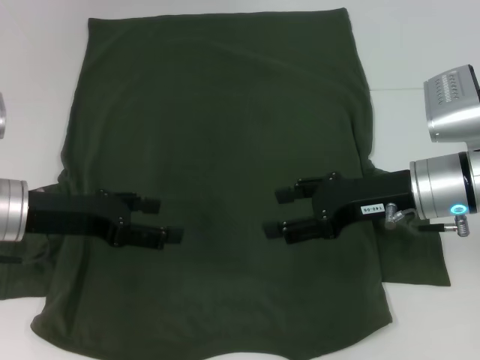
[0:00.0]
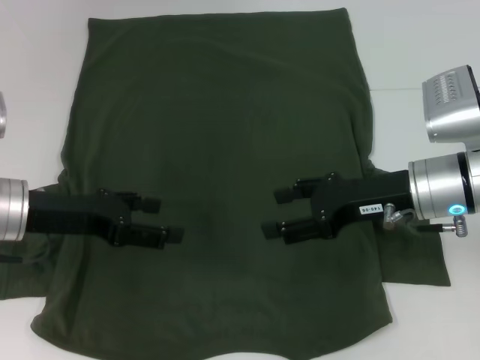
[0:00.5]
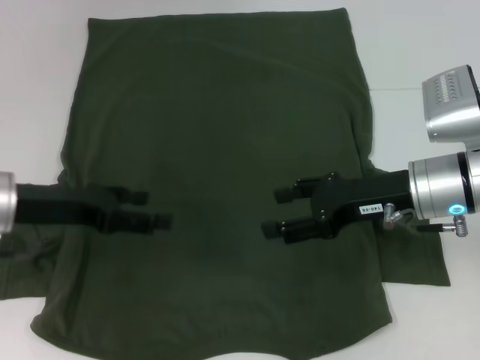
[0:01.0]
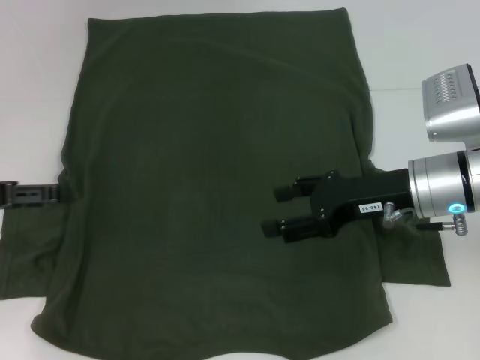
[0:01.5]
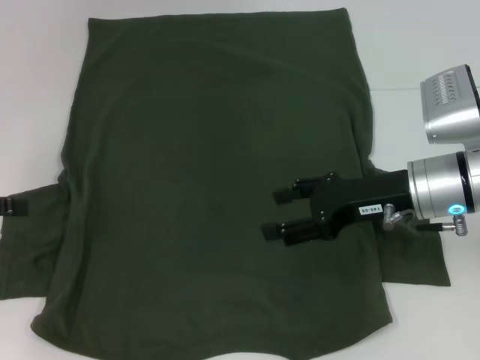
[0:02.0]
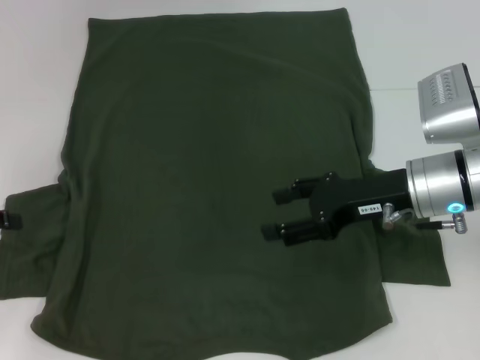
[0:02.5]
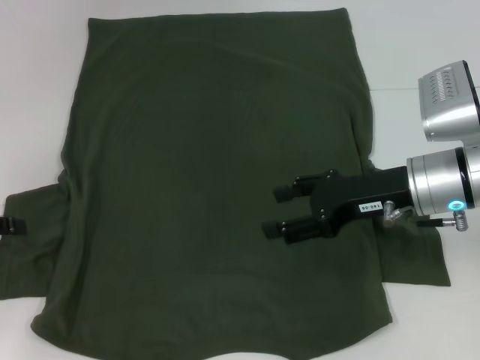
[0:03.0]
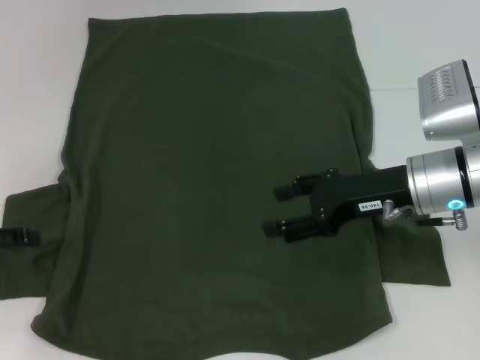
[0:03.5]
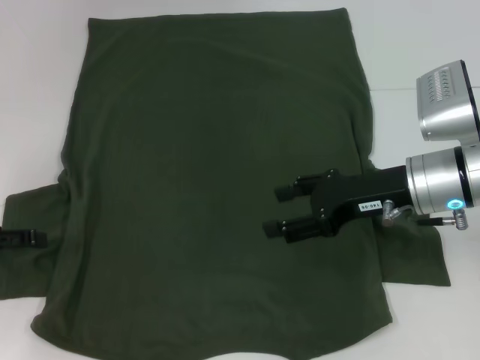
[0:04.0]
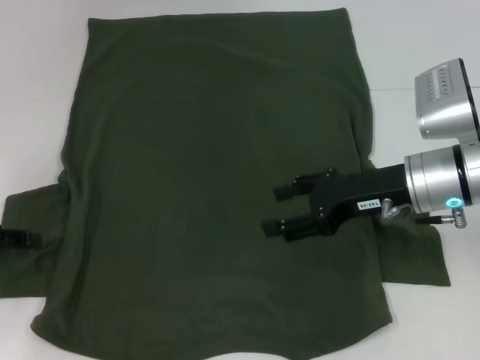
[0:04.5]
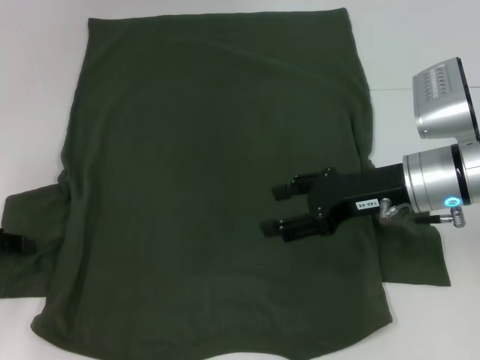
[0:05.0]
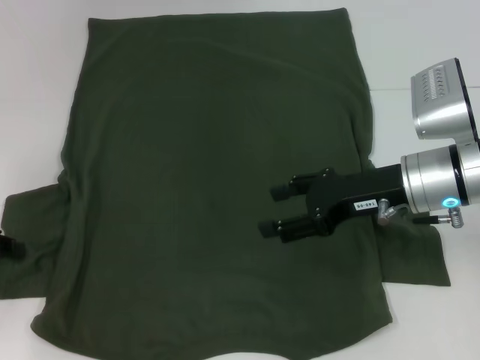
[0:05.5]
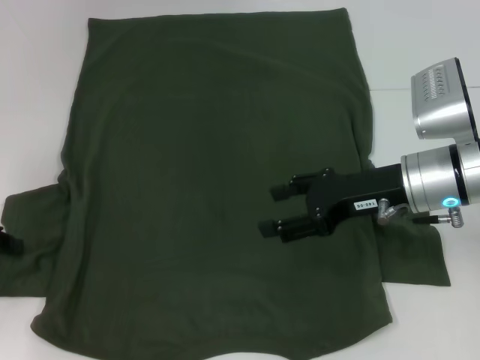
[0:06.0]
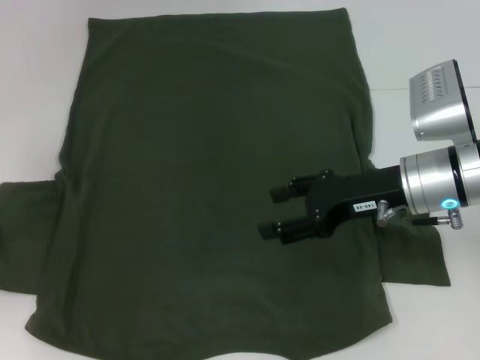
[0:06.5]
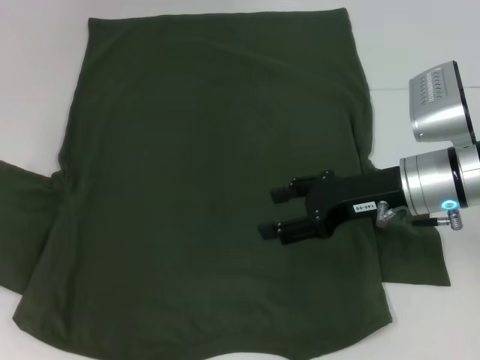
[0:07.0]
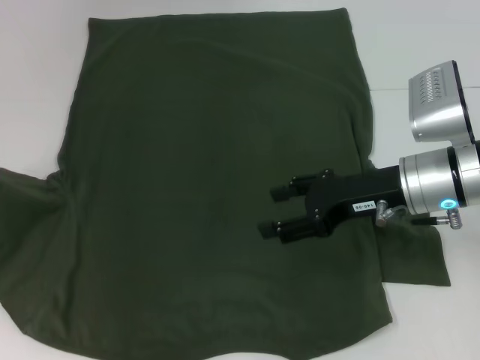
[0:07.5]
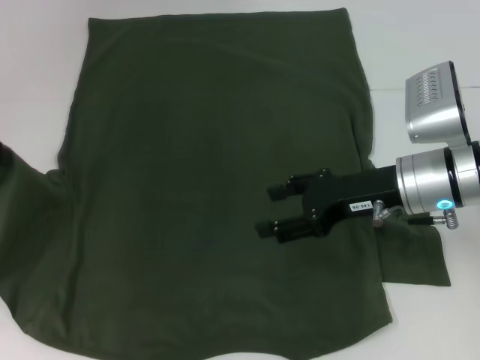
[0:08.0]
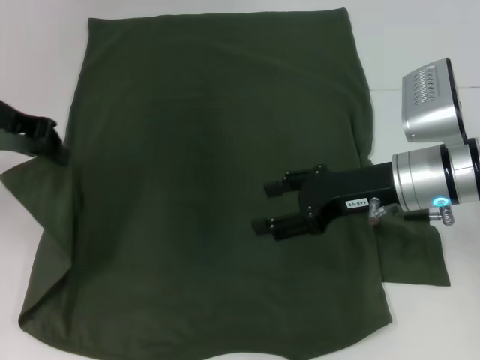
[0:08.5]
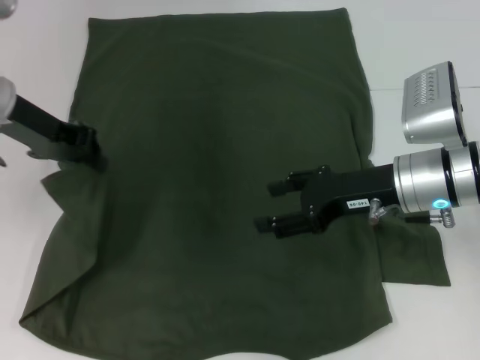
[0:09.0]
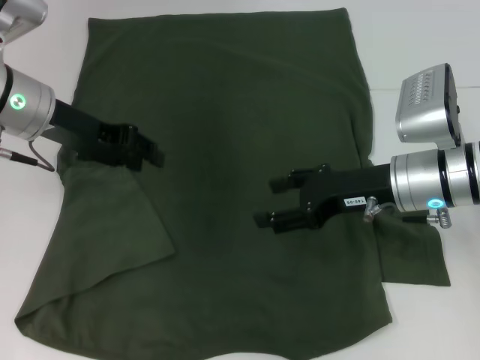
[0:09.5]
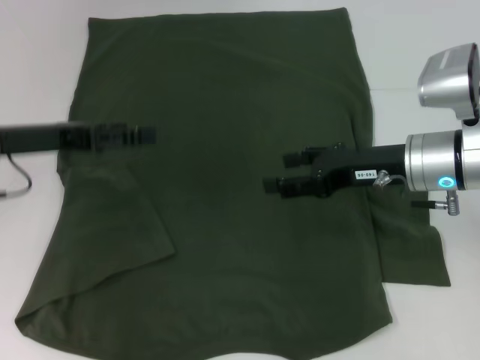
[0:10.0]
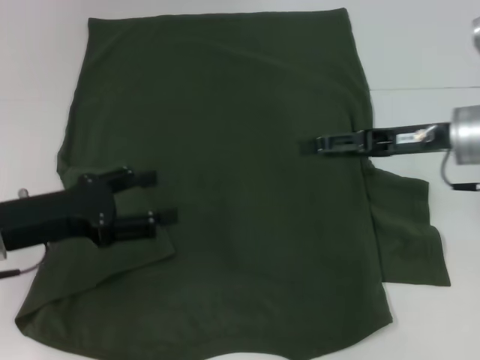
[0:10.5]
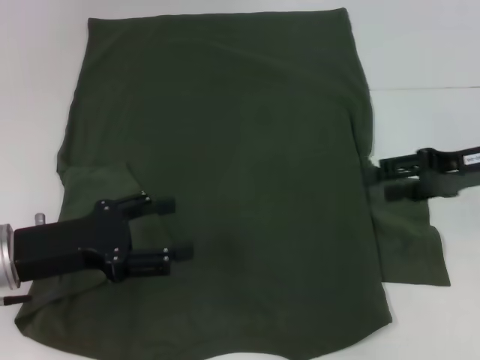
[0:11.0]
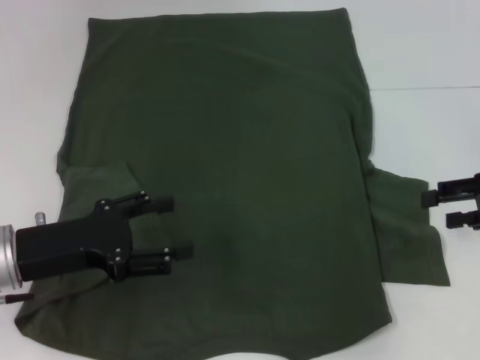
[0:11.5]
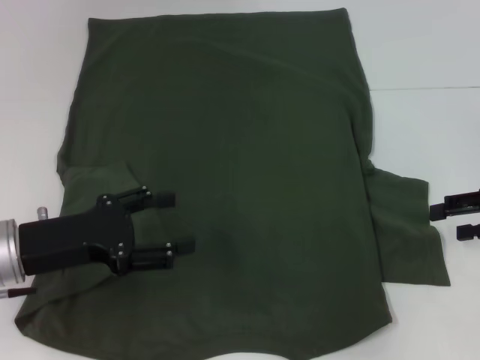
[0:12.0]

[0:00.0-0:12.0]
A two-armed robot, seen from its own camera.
Step, 0.0 to 9.5 s: Fold the bottom left sleeve with your left hand.
0.0 to 2.0 s: The left gripper goes roughly 15 cm to the left.
2.0 to 4.0 s: The grippers move only a little.
6.0 to 8.0 s: The left gripper travels upward and forward by about 15 cm.
8.0 to 10.0 s: The left gripper travels to the right and downward by about 10 cm, and opens its fingers.
10.0 to 12.0 s: The left gripper shifts some 10 cm backward and downward. Meanwhile the right gripper goes some 15 cm to the right.

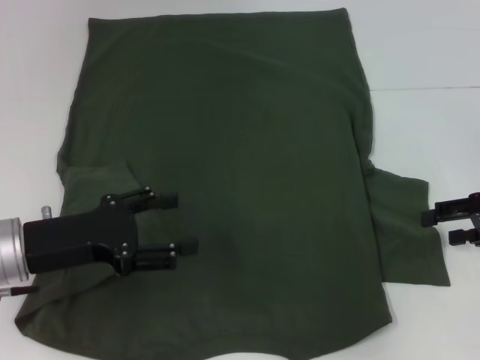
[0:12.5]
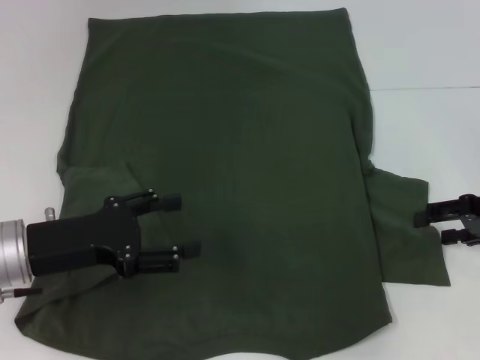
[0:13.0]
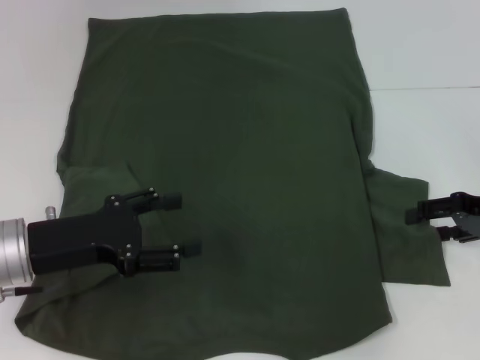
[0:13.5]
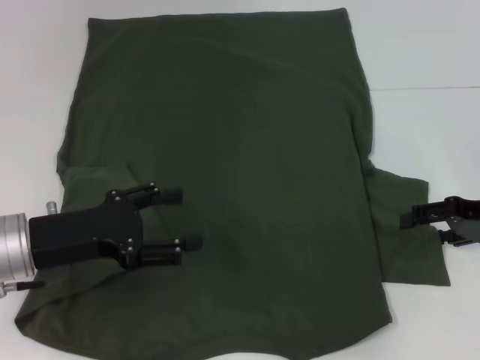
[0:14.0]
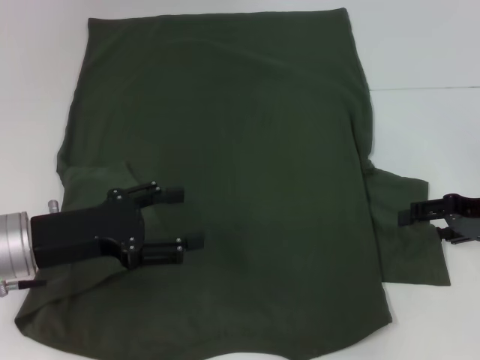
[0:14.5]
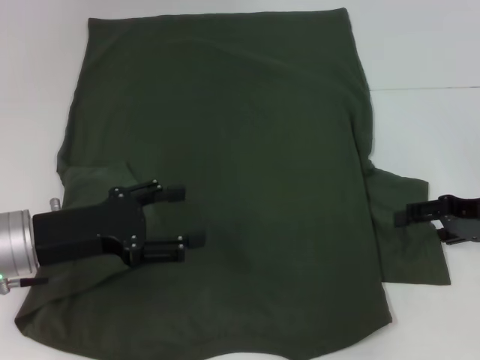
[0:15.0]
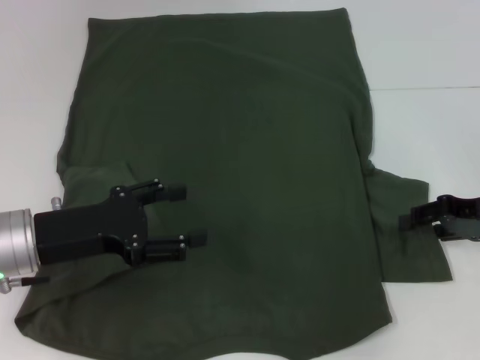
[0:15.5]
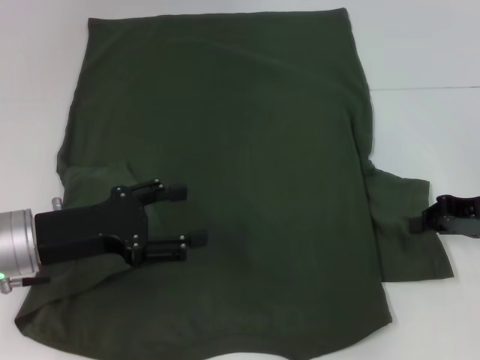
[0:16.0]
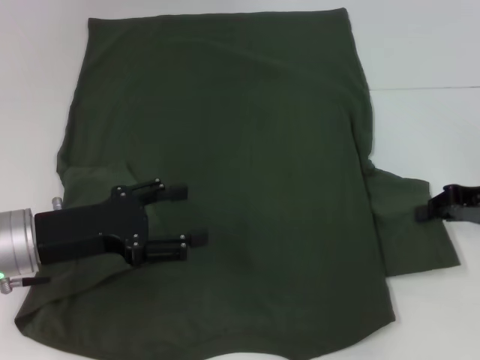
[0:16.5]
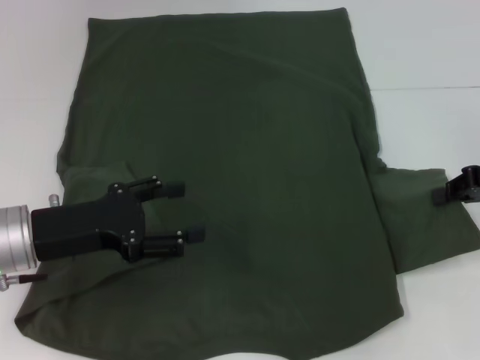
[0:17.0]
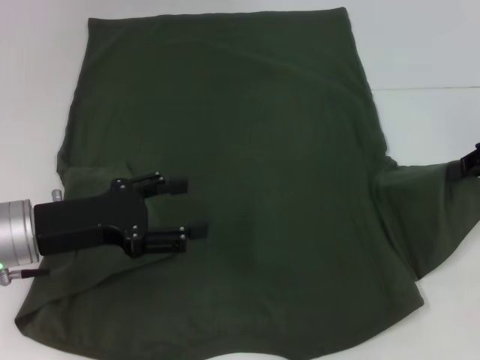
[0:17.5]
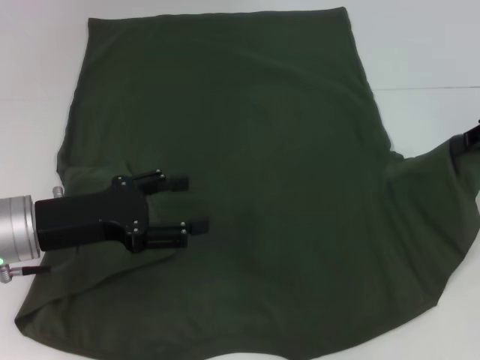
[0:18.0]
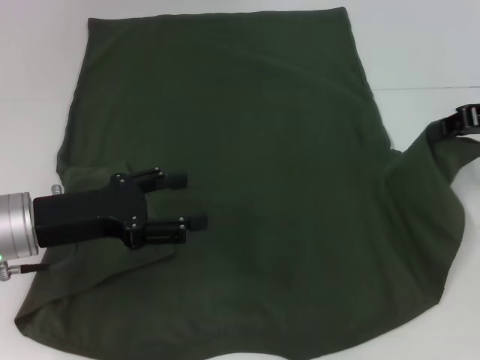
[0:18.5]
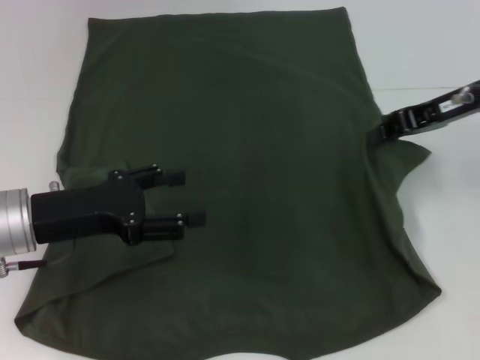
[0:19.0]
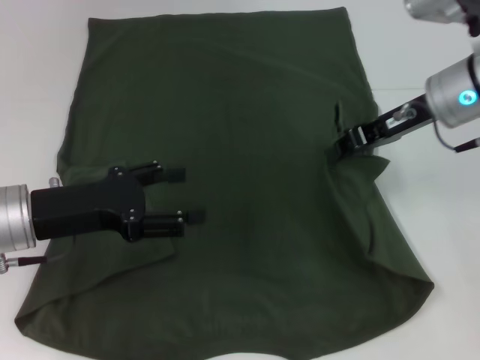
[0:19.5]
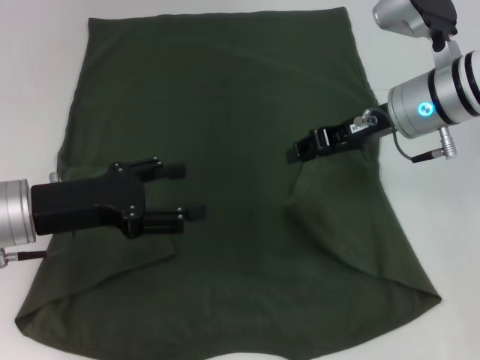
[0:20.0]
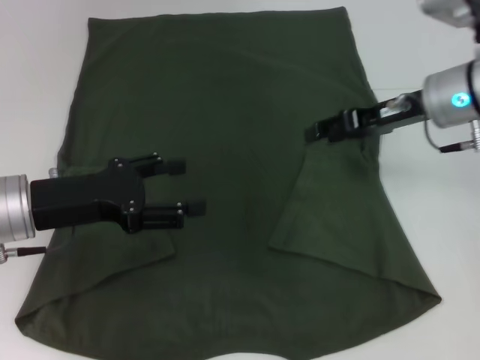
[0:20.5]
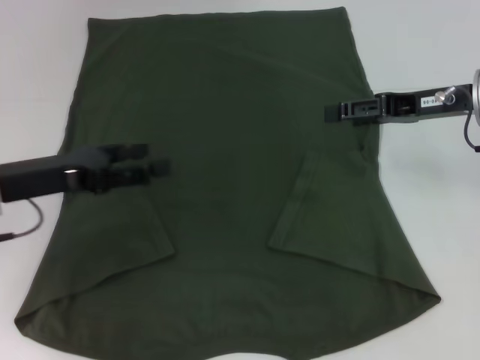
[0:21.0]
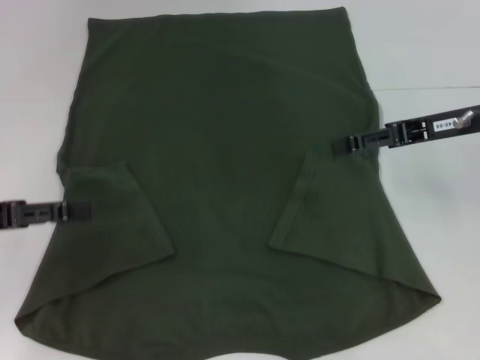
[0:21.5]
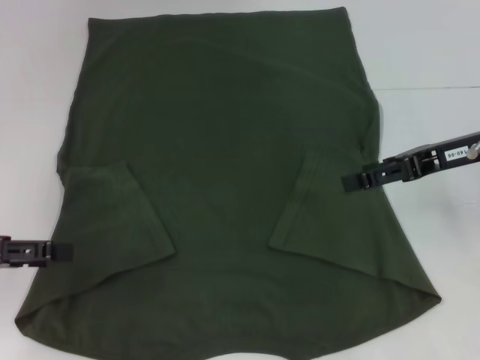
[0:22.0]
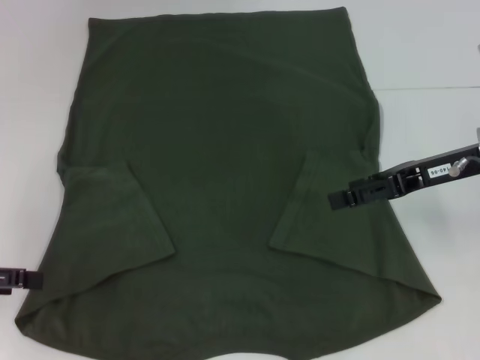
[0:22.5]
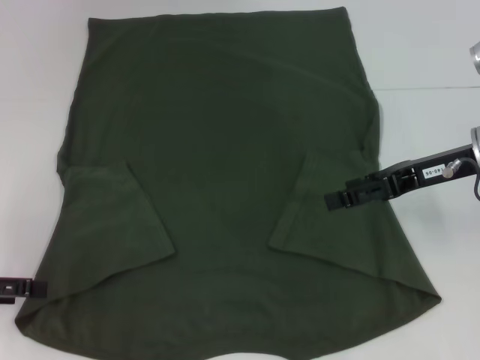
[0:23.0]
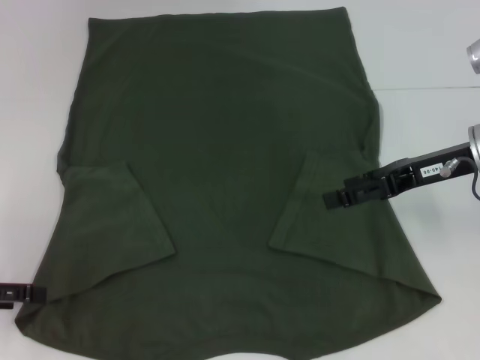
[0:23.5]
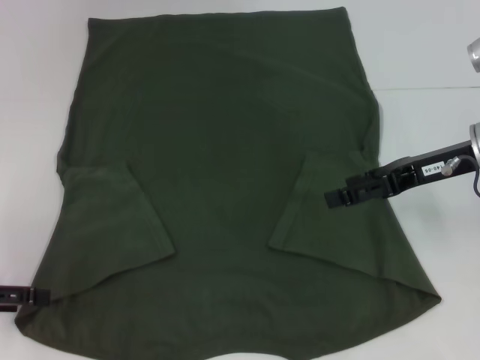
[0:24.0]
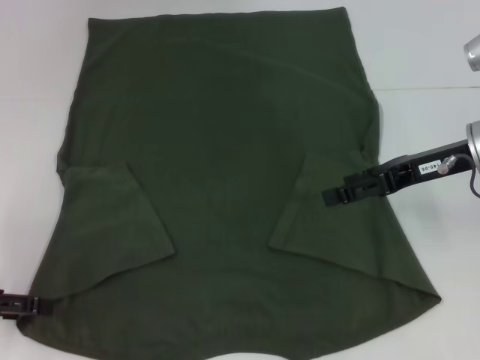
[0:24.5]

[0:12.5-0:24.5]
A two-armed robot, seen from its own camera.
Step, 12.5 to 20.0 s: Fold the bottom right sleeve with your right hand.
12.5 to 14.5 s: The grippers move only a little.
14.5 to 16.5 s: The right gripper closes its fingers.
16.5 to 18.5 s: The right gripper travels upward by some 10 cm.
18.5 to 20.5 s: The right gripper is displaced to the left by about 10 cm, and opens.
20.5 to 22.5 s: The right gripper heads backward, covering some 5 cm, and opens up. Meanwhile the left gripper heads to the left, covering approximately 15 cm.
22.5 to 24.5 s: The grippers stay close to where they were, moving slightly.

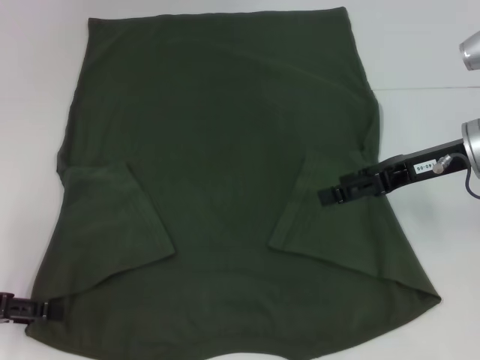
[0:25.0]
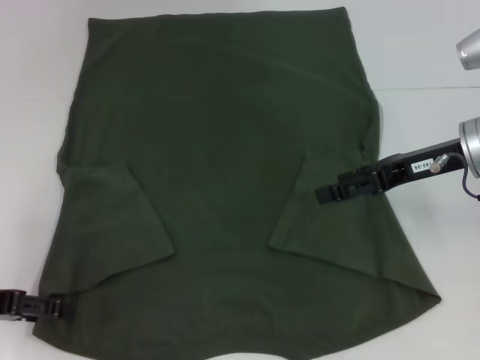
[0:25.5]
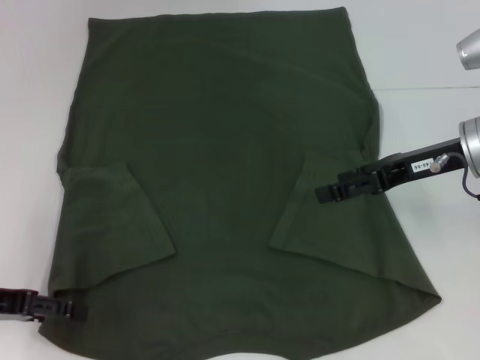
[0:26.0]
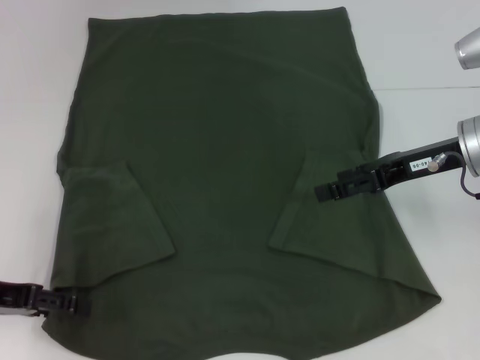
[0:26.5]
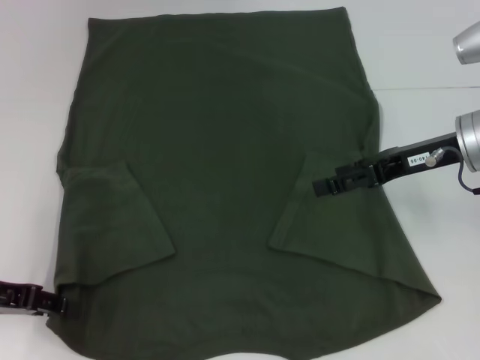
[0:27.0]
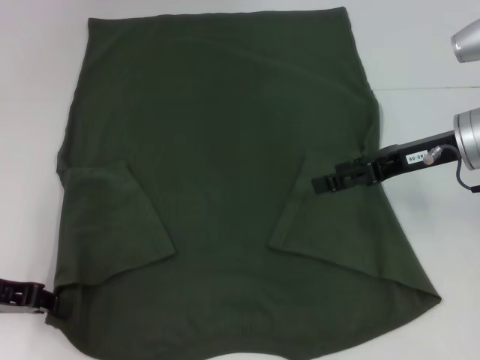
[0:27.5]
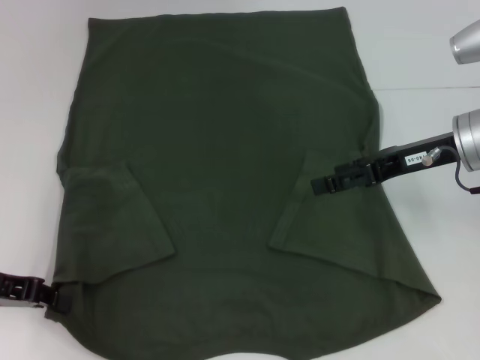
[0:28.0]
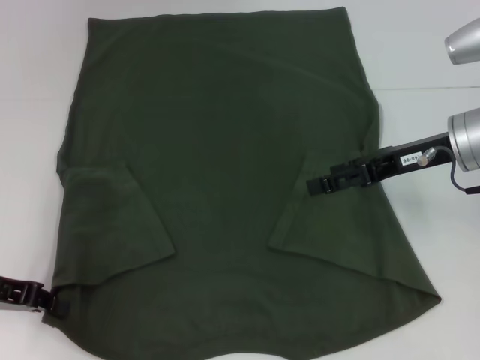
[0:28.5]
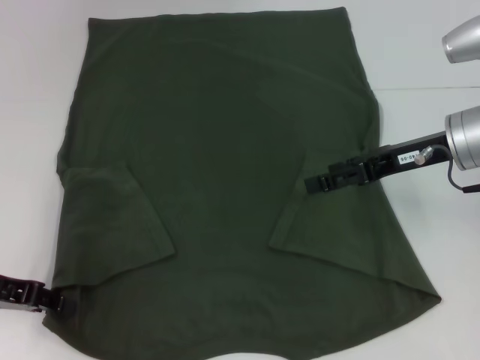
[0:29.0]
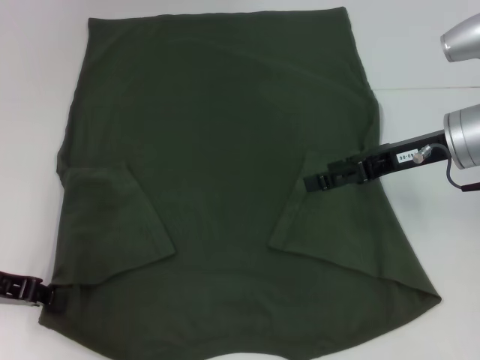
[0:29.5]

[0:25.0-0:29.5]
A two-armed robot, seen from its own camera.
Step, 25.0 to 27.5 s: Grab the bottom left corner with your left hand.
25.0 to 27.0 s: The left gripper closes.
27.0 to 29.5 s: The left gripper closes.
